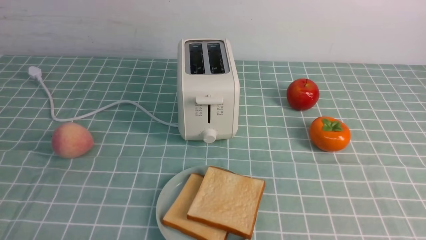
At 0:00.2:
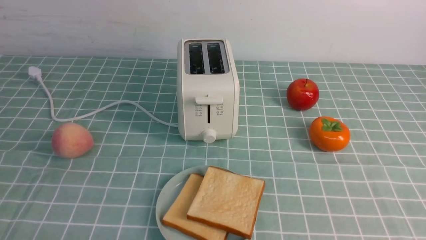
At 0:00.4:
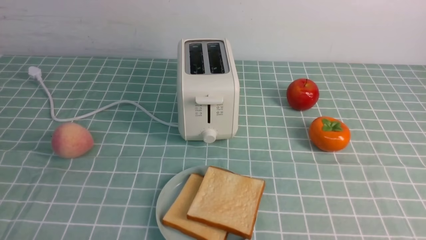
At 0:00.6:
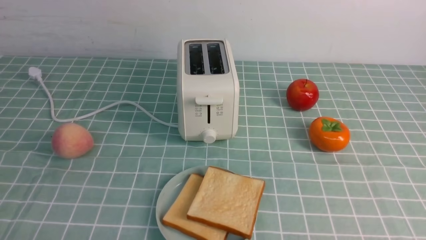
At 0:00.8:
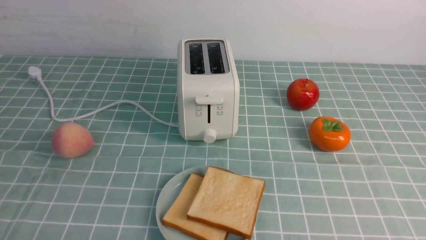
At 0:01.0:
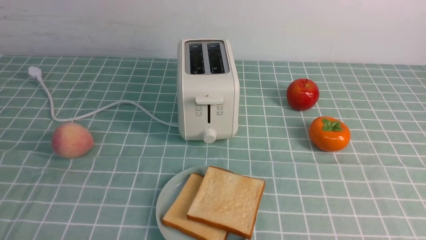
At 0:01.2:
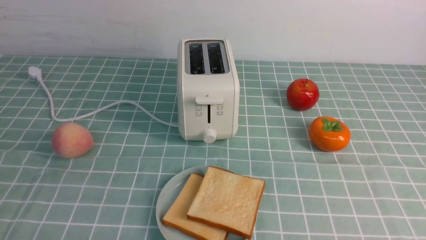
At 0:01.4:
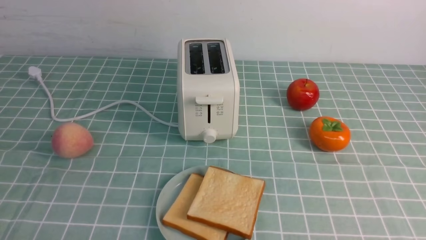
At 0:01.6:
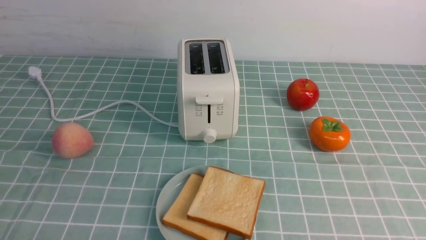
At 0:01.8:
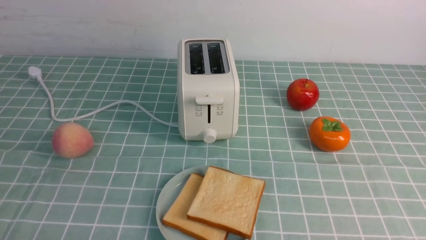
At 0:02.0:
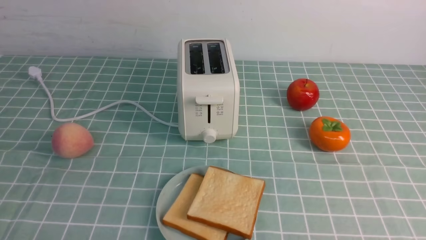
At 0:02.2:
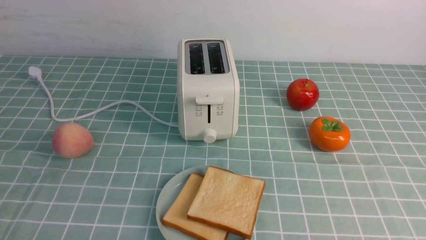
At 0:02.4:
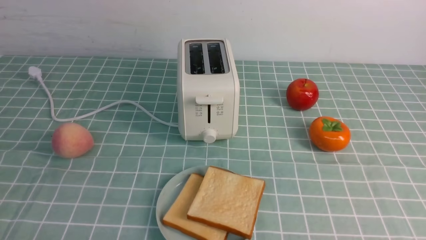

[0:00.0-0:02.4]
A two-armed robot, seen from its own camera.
Task of the whole recording: take toasted bread from bread machine on blue coffee table place on plate.
0:01.2 to 0:02.4: The two grippers keep their place.
